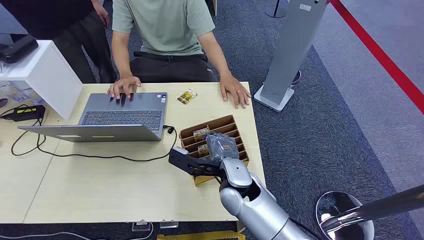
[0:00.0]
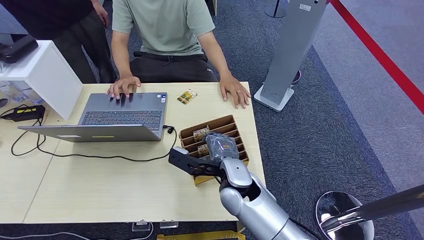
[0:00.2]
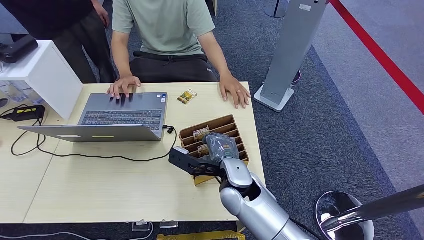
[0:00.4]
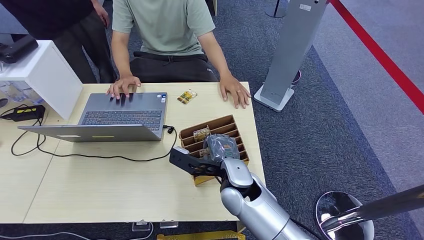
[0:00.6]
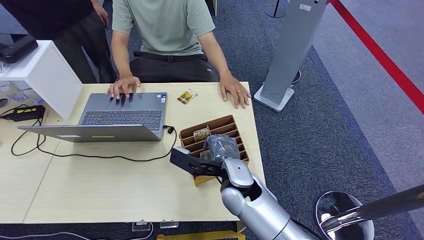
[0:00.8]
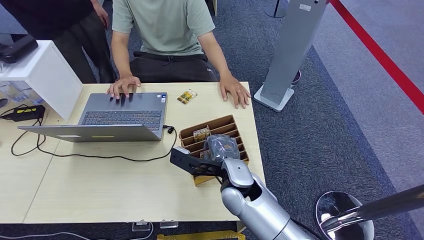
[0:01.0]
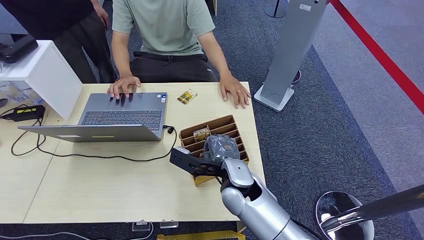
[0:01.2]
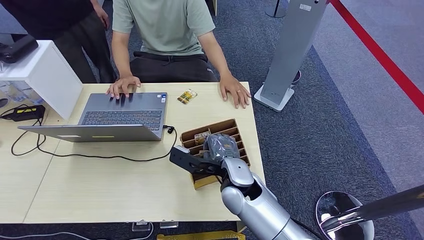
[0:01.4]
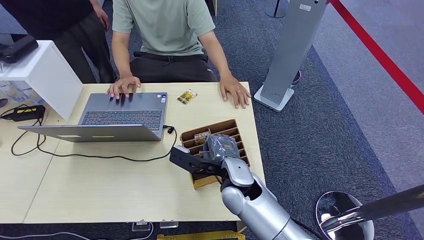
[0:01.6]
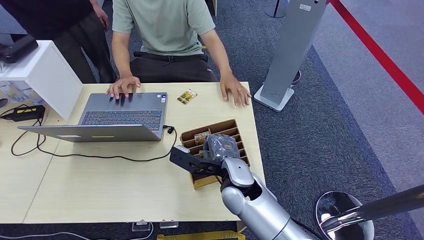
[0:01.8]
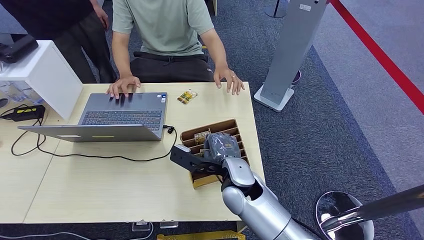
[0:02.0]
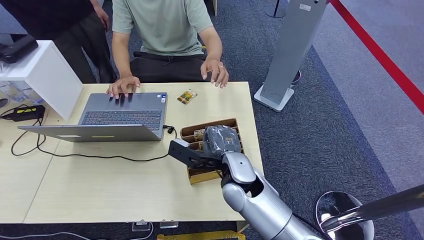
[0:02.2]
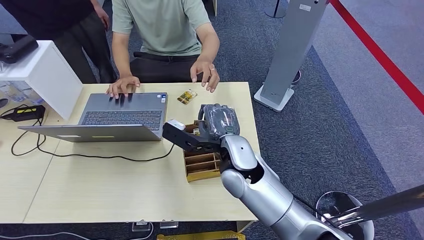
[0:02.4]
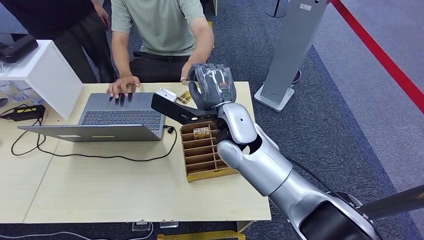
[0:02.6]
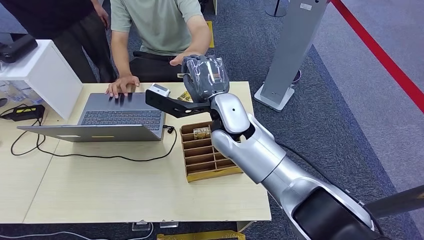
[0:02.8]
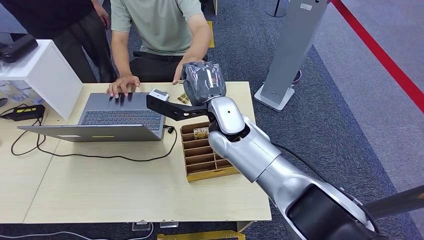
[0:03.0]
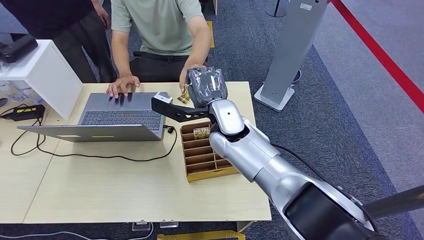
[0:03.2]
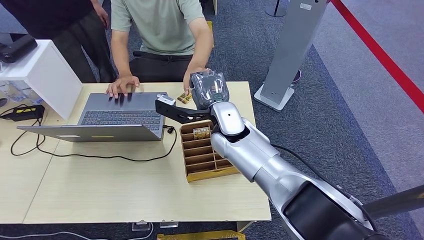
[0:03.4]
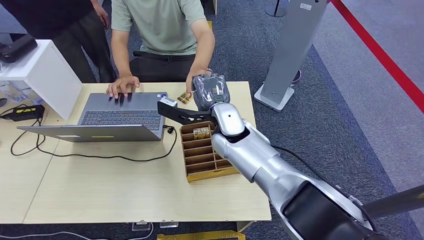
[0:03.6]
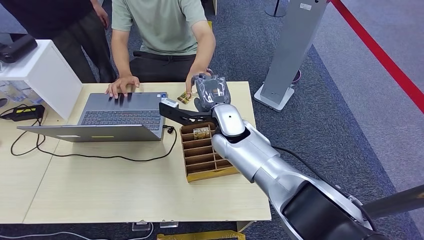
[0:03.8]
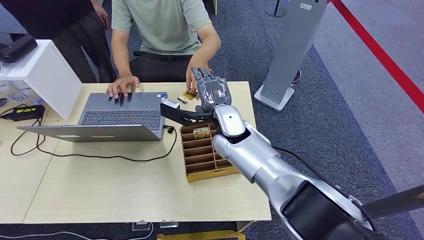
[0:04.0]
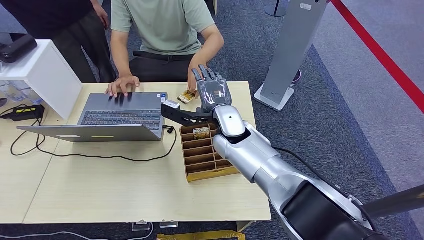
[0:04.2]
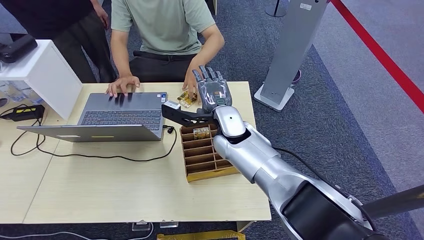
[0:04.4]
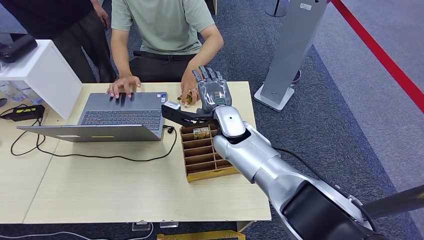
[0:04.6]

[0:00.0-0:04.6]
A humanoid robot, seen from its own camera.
Step, 0:00.0 to 0:02.2: Pick up the key card from the card box.
Step, 0:02.4 to 0:04.6: Hand the key card to the target.
0:01.6 to 0:03.0: The right hand heads upward and forward, covering approximately 15 cm.
0:03.0 to 0:04.6: The right hand heads downward, covering approximately 5 cm.
